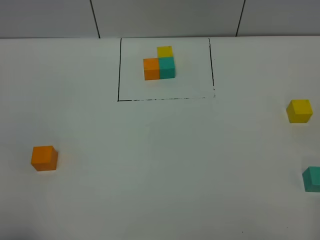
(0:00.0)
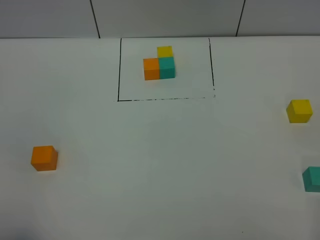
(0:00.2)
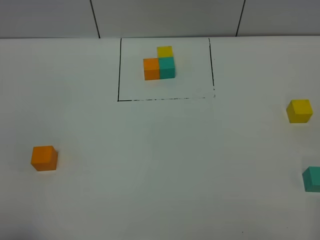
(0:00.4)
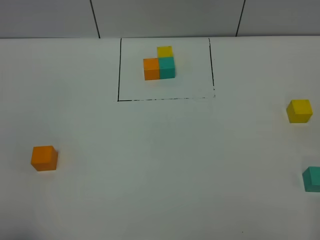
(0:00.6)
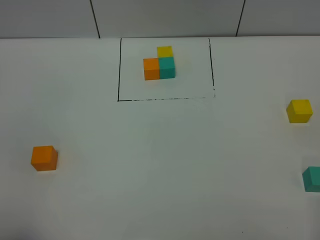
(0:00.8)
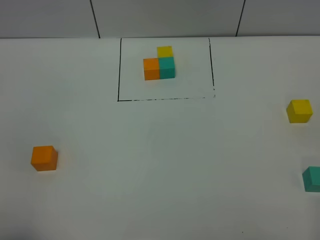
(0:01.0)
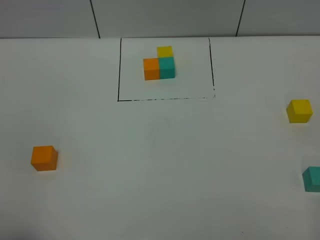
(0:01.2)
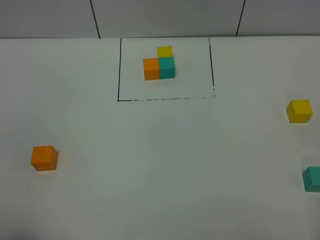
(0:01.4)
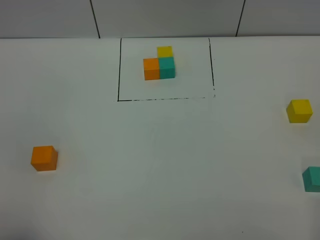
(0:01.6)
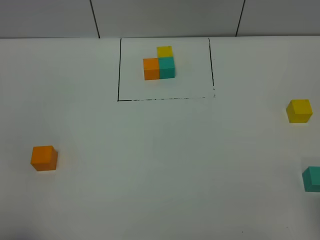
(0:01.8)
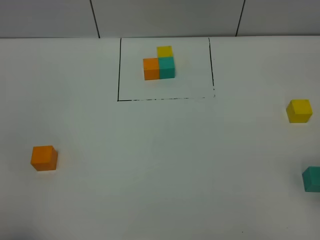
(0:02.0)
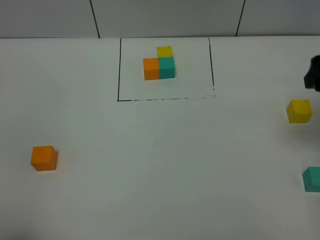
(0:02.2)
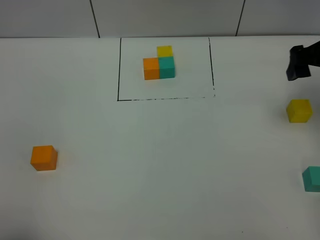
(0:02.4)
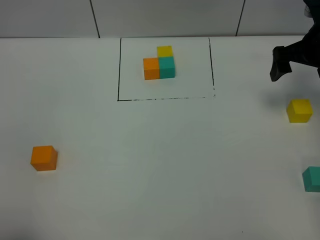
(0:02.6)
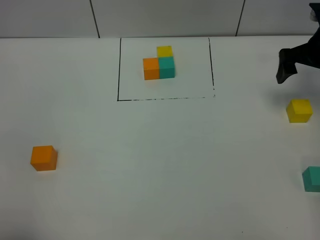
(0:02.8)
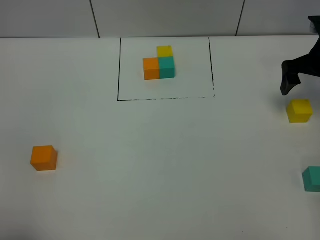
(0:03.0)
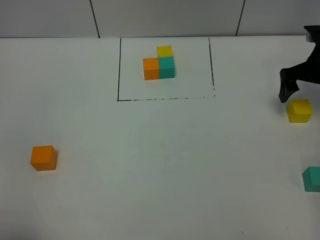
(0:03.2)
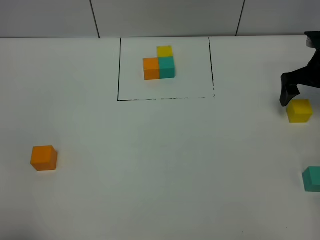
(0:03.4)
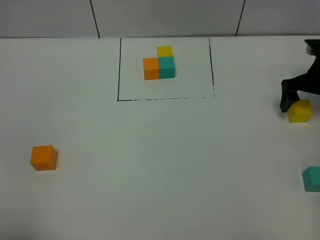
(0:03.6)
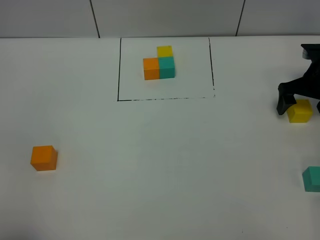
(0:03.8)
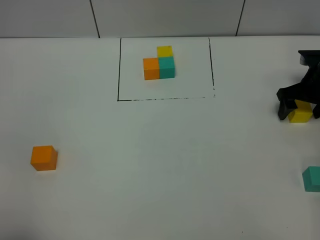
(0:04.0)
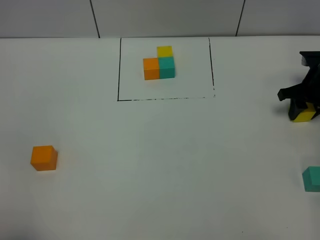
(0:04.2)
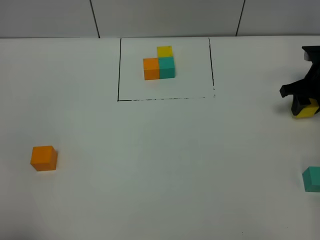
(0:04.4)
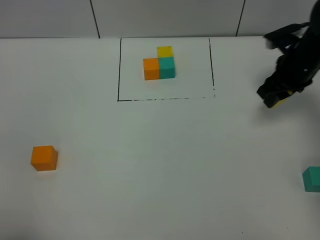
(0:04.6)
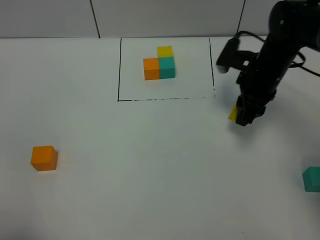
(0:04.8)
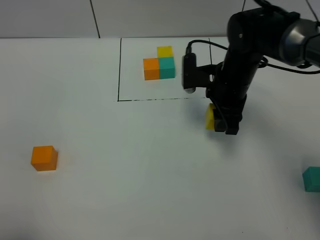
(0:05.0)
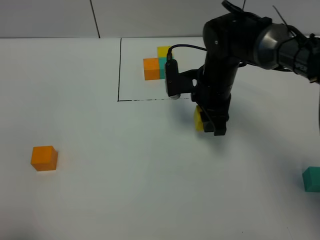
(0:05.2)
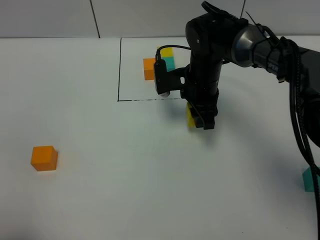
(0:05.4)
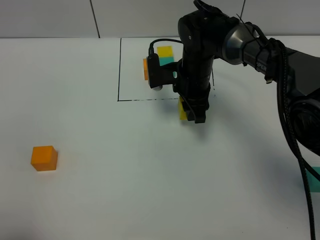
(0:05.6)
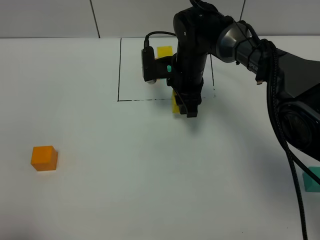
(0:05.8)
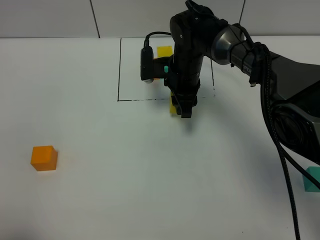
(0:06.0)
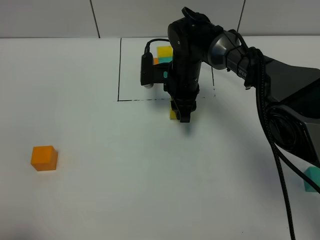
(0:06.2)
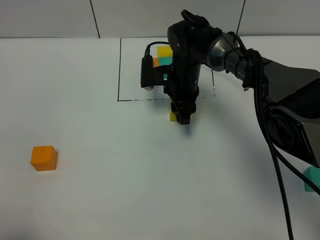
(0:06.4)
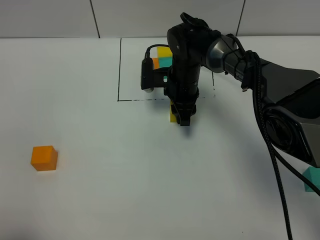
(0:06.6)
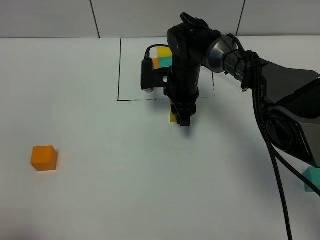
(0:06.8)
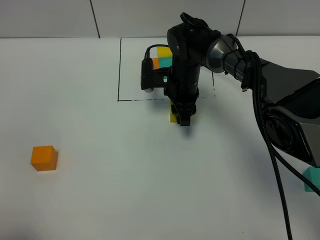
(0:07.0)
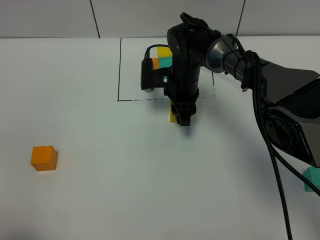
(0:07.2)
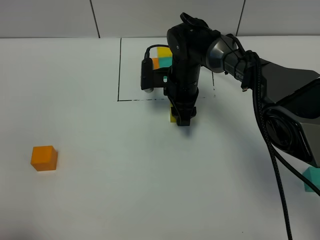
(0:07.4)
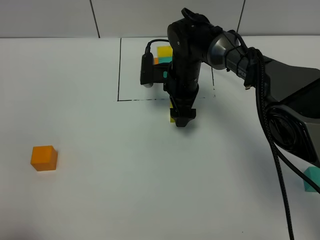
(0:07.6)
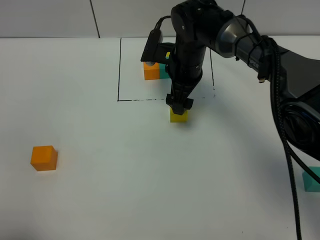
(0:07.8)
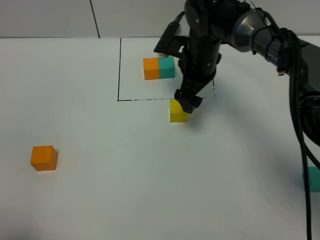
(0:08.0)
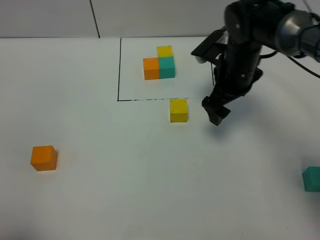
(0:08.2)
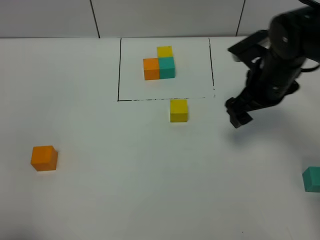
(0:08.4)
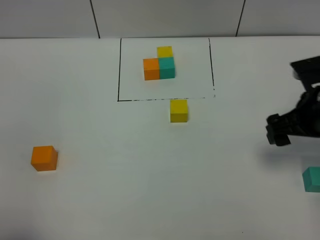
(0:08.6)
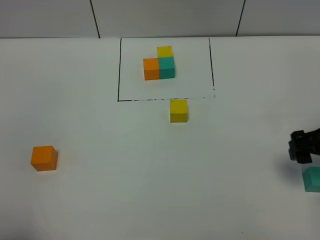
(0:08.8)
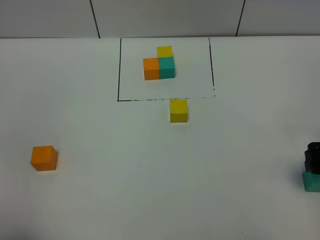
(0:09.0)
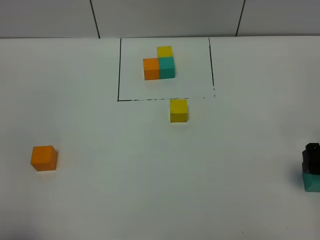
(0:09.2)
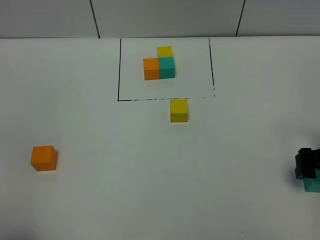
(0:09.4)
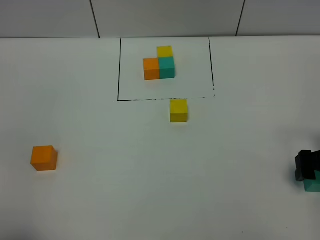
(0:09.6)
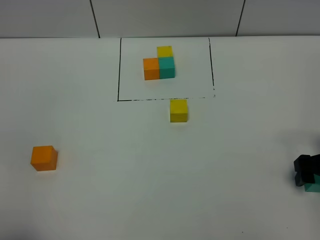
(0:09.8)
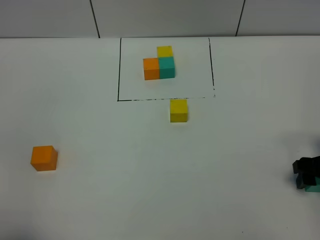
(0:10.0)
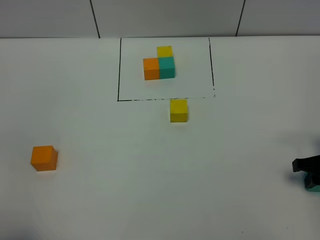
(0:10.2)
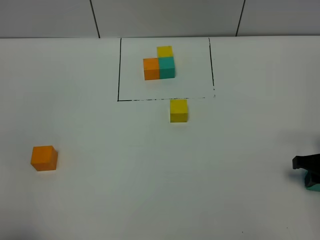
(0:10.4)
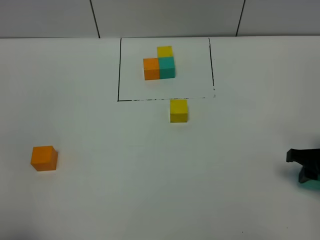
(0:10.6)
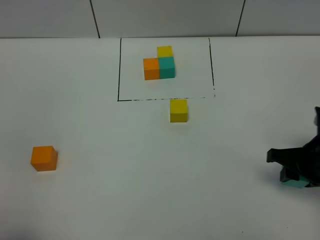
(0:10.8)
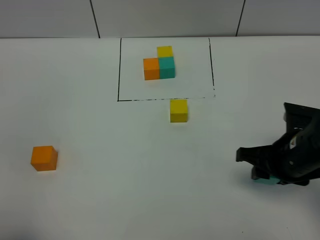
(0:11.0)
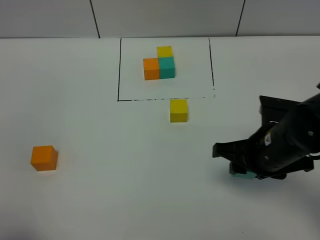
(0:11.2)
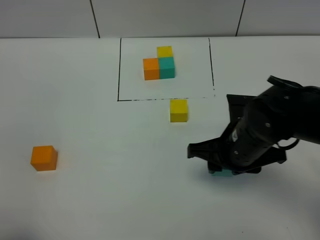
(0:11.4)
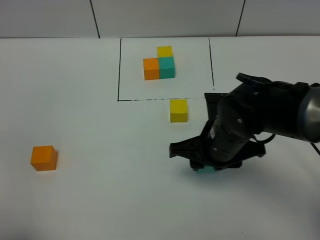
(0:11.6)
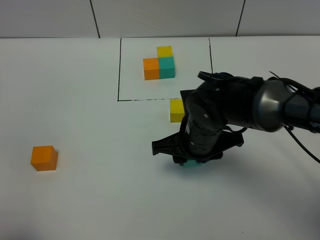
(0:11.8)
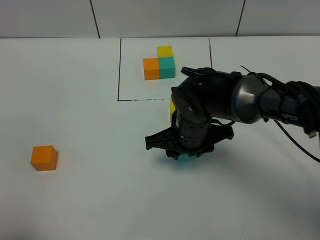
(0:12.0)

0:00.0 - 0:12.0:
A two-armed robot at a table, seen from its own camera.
Task of the whole recording: According to the building block template in front, assemble the scattered blocks together.
Step, 0:00.0 - 0:06.8: Put the yellow build block in the center of the table.
0:00.0 - 0:01.6: The two grippers keep their place.
0:01.6 - 0:03.0: The right gripper is displaced forward by approximately 40 cm.
0:03.0 - 0:04.4: The right gripper travels downward by approximately 5 cm, and closes up.
0:04.4 - 0:06.0: The right gripper goes roughly 30 cm to the left.
0:06.0 - 0:07.6: The right gripper opens.
0:07.6 - 0:09.0: The right gripper is displaced to the right and backward by about 35 cm.
0:09.0 - 0:10.4: The right gripper goes some 5 cm downward, and closes its fingers.
0:10.4 - 0:12.0: The right gripper goes about 30 cm to the left.

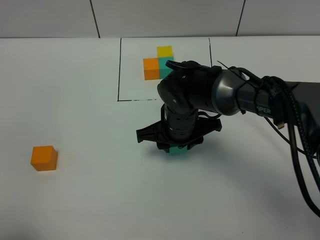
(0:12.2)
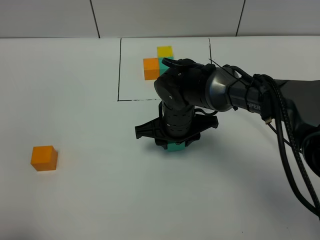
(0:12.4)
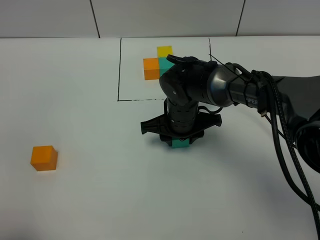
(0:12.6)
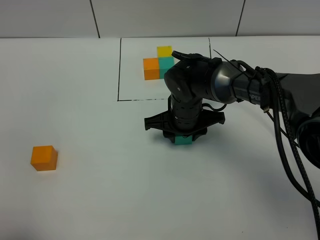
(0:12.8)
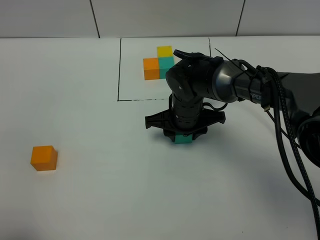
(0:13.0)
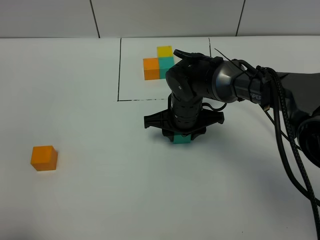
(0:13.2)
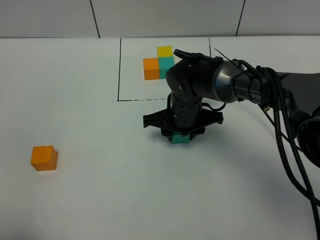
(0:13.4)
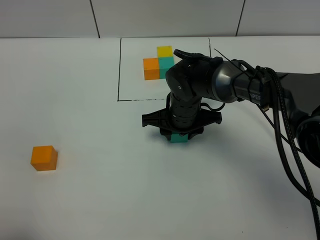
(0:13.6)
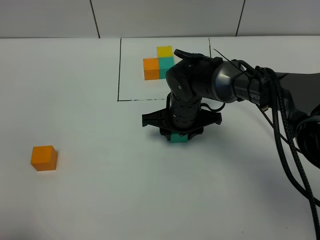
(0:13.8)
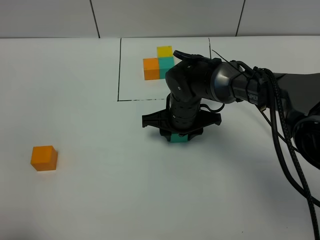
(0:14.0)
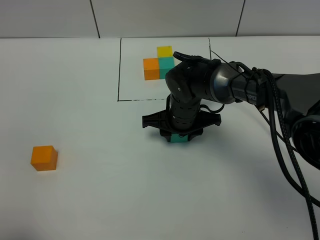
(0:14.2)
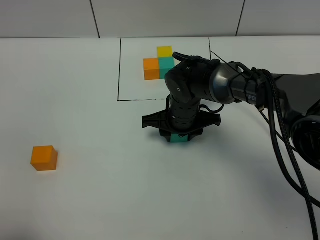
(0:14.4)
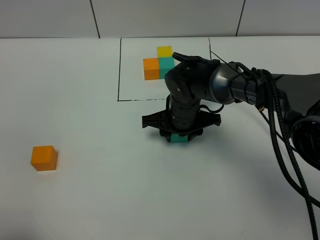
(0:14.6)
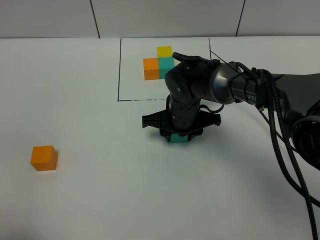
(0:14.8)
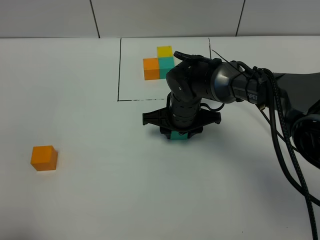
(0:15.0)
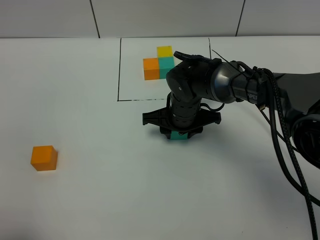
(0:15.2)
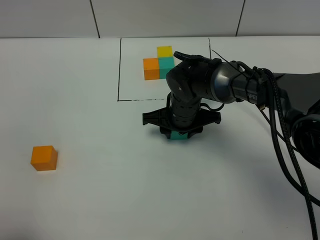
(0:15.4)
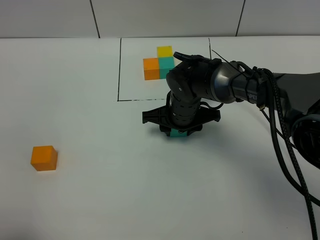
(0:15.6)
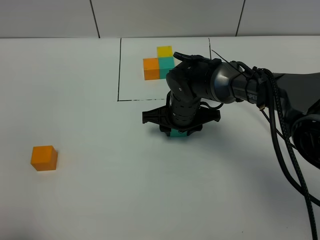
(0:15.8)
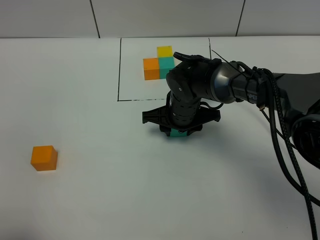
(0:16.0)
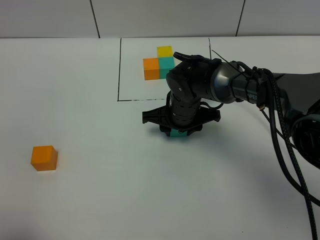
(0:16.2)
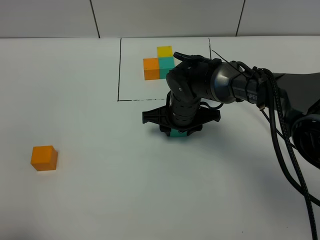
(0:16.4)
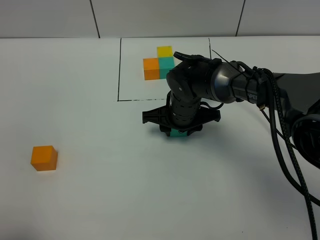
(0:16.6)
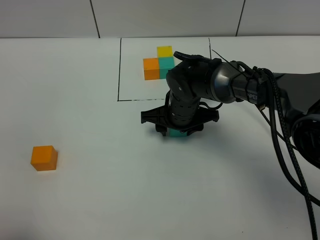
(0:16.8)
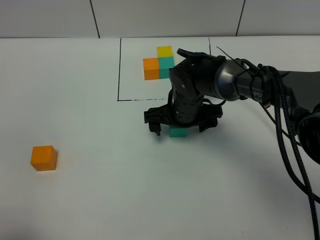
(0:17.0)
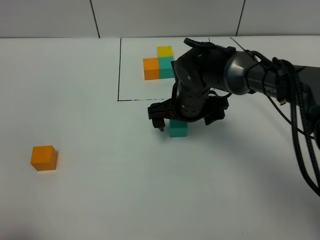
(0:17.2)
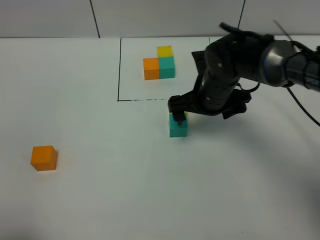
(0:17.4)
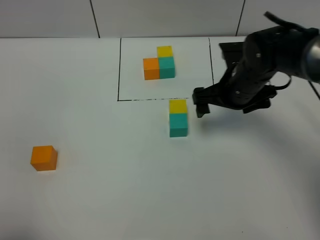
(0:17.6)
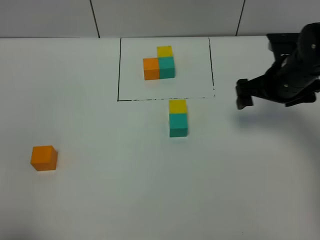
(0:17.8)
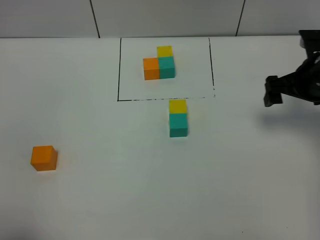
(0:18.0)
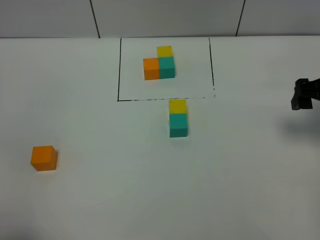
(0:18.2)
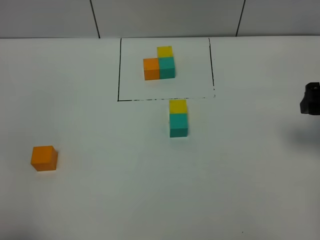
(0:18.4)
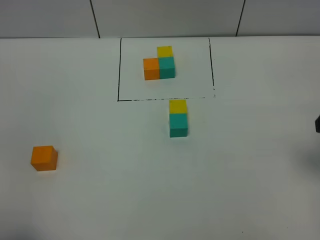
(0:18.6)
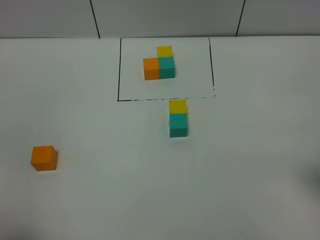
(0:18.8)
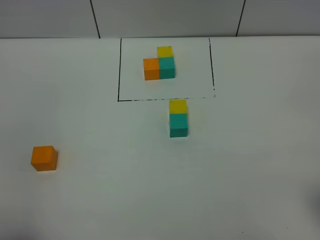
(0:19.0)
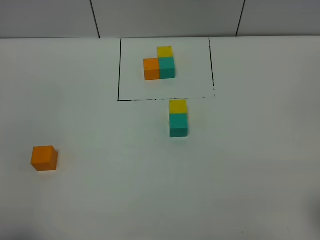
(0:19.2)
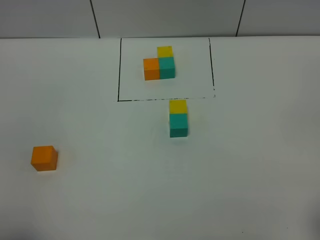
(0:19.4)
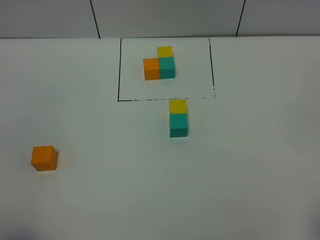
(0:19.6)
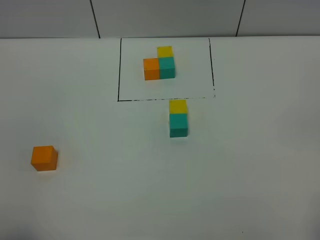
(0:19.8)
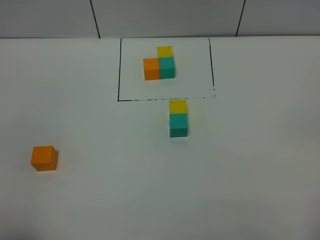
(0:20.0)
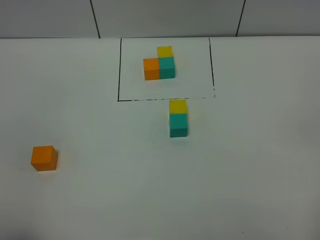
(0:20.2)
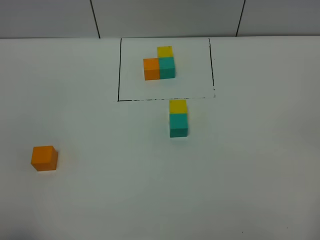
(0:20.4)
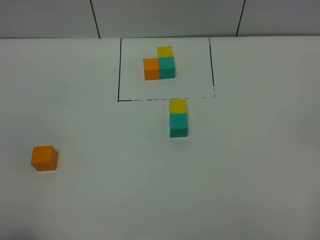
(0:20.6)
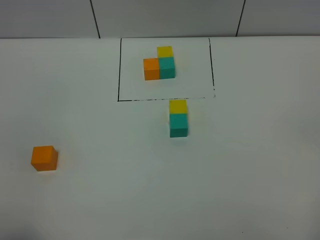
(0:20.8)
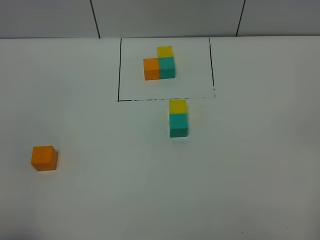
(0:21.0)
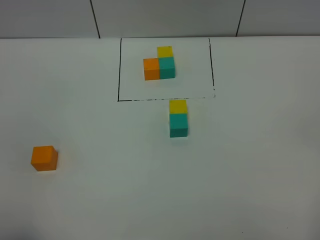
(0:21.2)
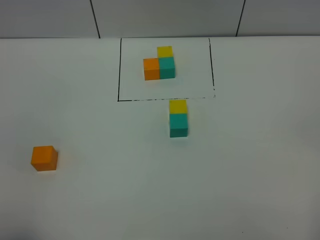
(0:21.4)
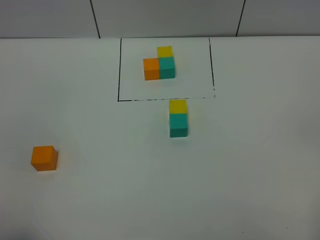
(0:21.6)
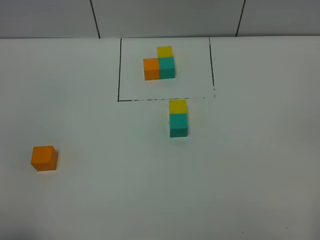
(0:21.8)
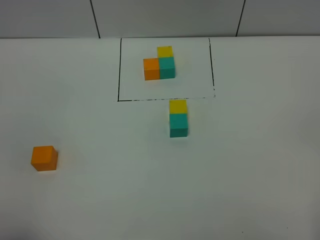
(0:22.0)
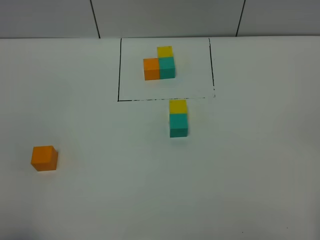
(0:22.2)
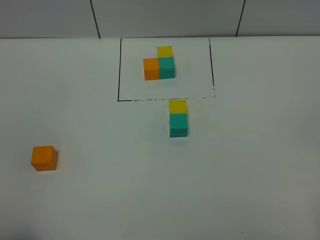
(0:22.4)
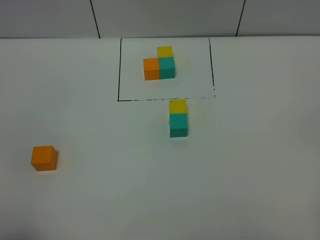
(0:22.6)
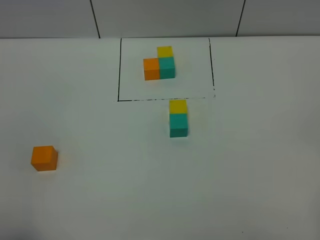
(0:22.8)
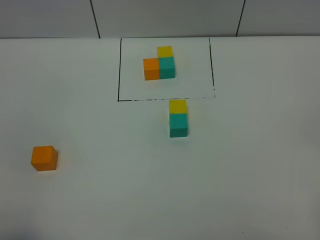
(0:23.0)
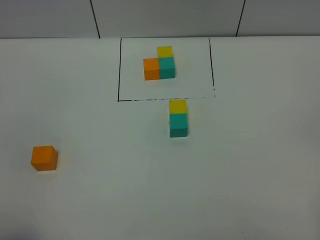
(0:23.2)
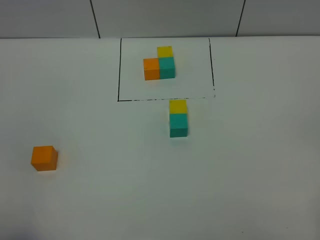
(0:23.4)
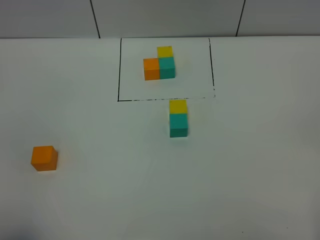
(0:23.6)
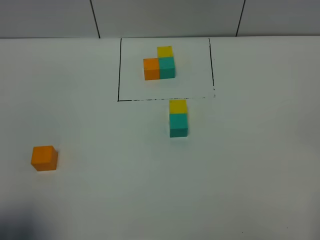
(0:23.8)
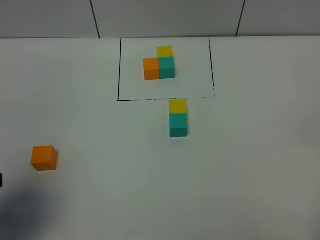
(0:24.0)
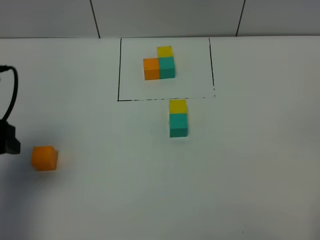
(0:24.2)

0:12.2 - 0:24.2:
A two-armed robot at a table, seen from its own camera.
Task of the whole recording: According to the building block template in front, assemble the scattered blocks together.
Step, 0:12.2 - 0:16.8: Put the green build block on the behind of the yellow build block.
0:12.2 - 0:13.8: The grippers stay close to where they were, moving slightly.
0:13.8 - 0:16.6: The two grippers keep their place.
0:16.6 - 0:18.2: The right gripper shifts approximately 30 cm to the right and upward, and opens up.
0:18.2 - 0:19.8: The right gripper goes approximately 30 cm backward.
0:22.6 - 0:24.2: The left gripper goes some 25 cm forward.
